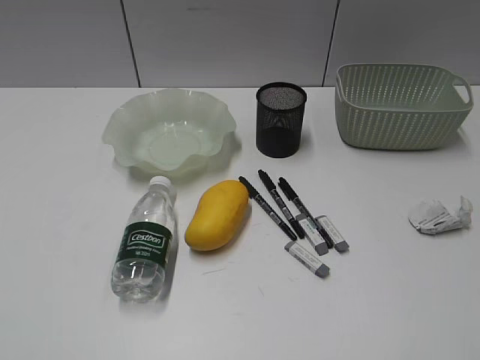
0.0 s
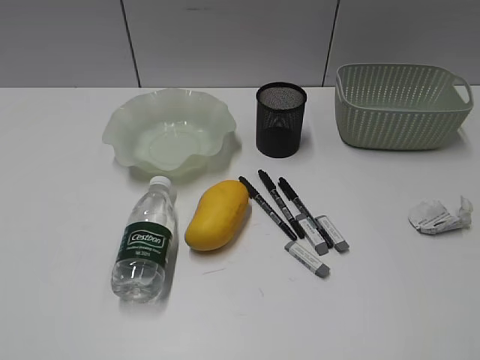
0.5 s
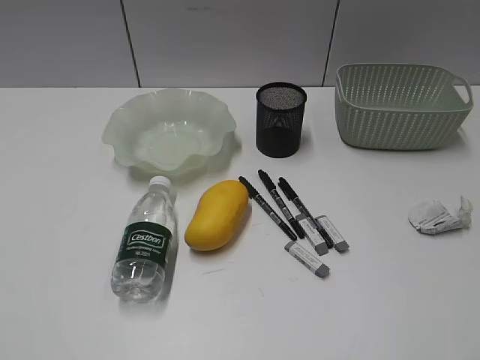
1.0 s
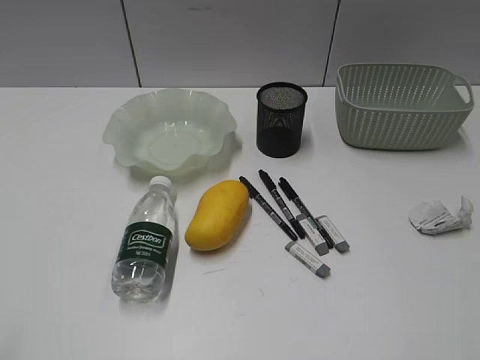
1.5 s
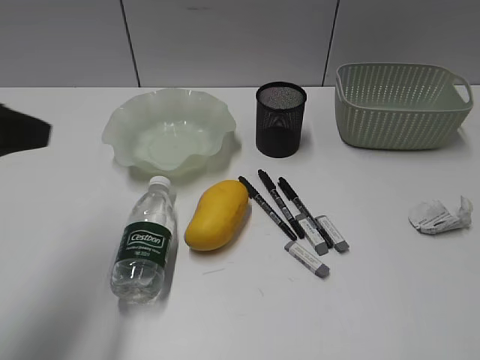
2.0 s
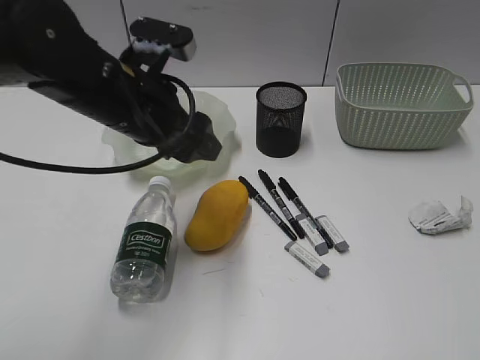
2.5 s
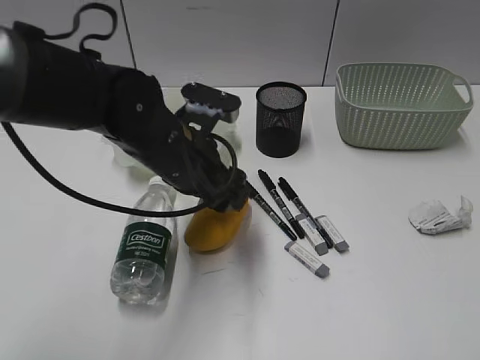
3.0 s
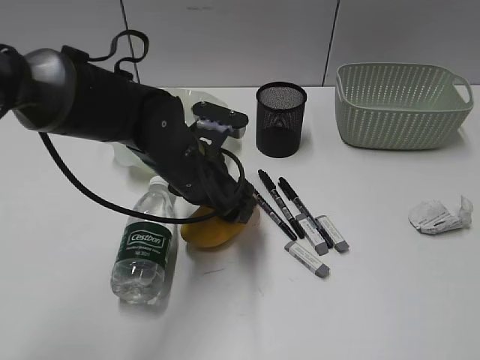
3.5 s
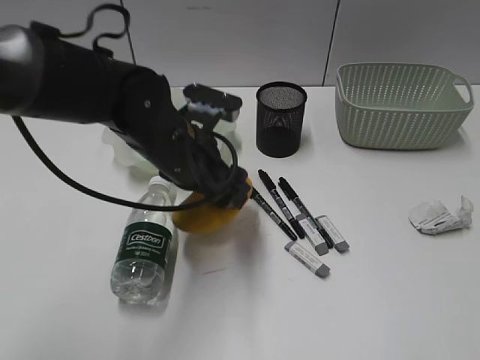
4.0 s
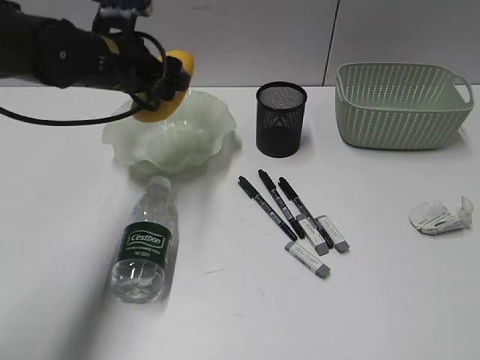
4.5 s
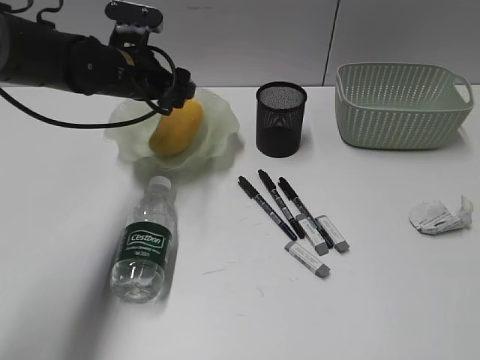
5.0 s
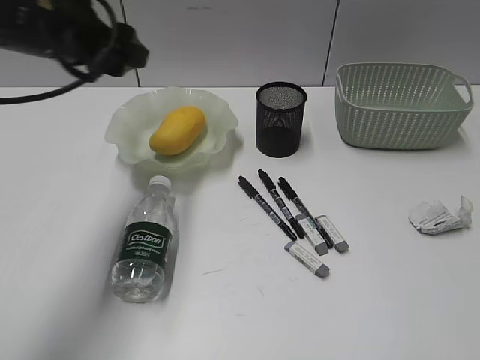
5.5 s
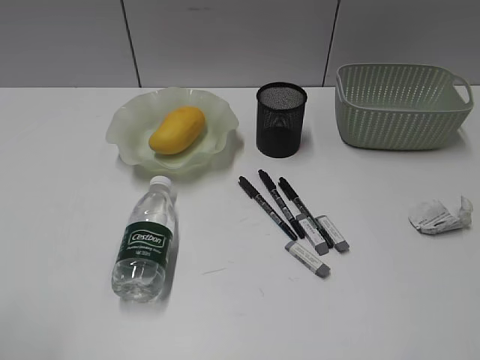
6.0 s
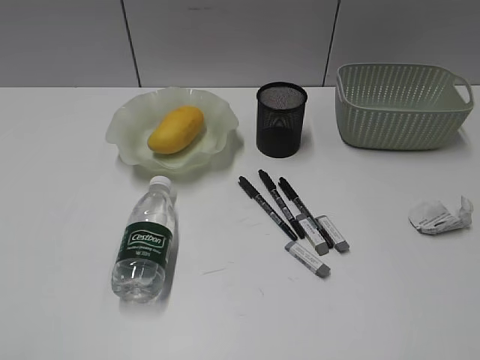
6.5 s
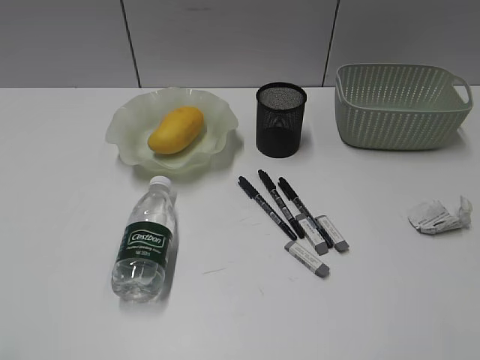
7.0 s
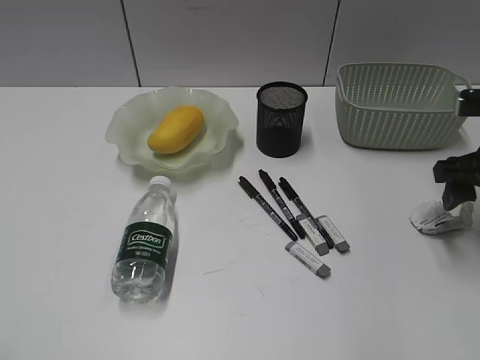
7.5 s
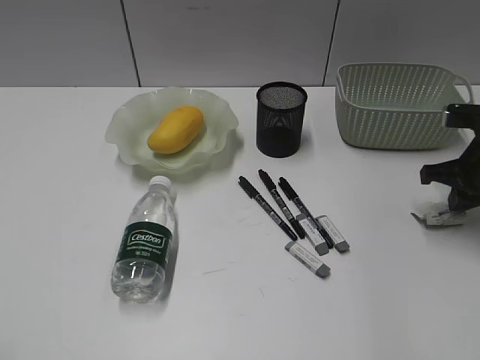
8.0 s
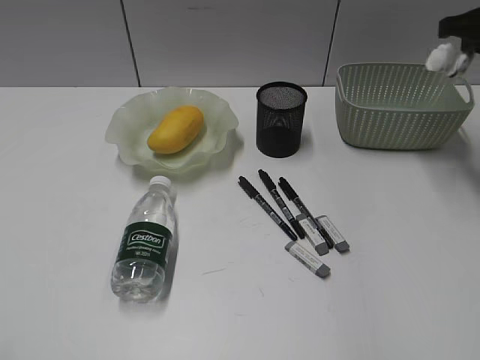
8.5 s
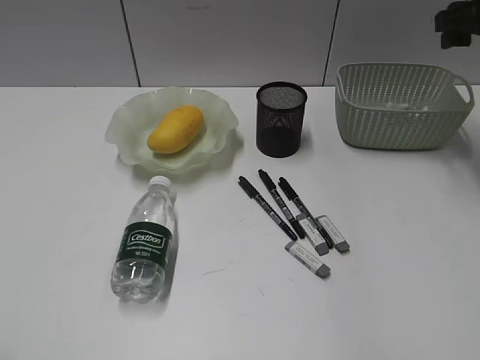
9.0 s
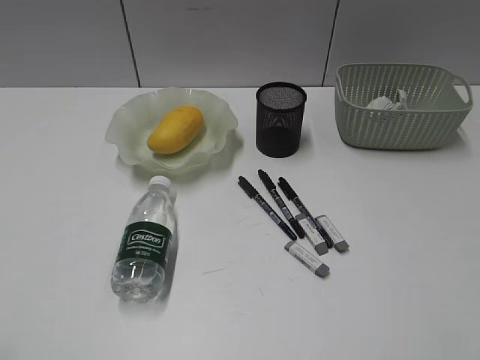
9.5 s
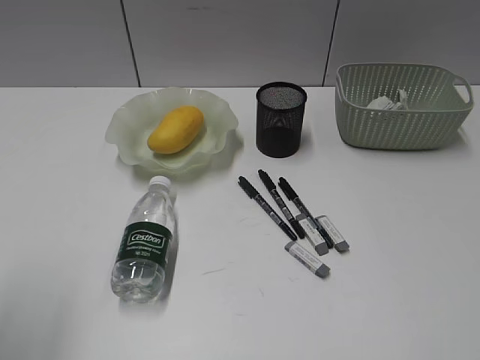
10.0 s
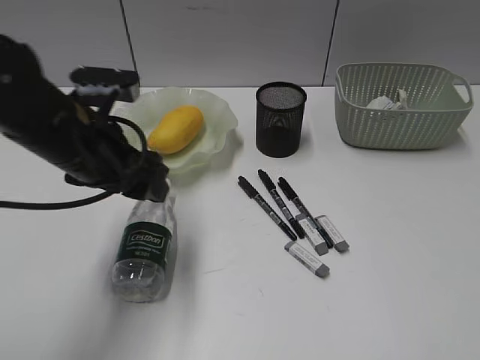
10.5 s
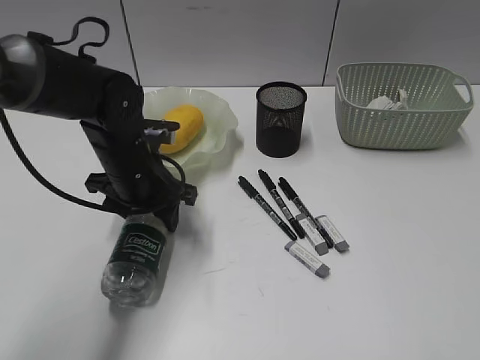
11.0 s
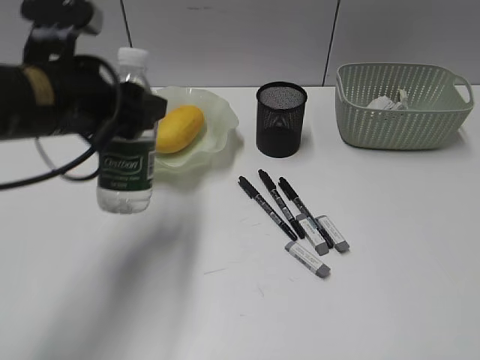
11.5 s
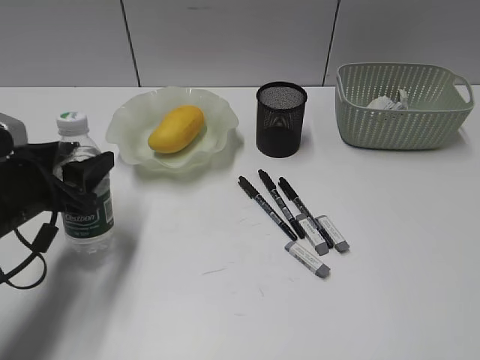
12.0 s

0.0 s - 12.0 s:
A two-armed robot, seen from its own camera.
Step, 1.5 s - 3.5 s: Grasp the mango with left gripper.
Step, 4.0 s - 5.0 s: Place the mango in the plate with left gripper.
Step, 5.5 s - 8.0 s: Grasp the waste paper with right gripper.
Step, 9.0 s - 11.0 s: Grasp the bottle with left gripper.
2.0 s - 4.0 s: The left gripper travels to the right, downward and forward by approximately 25 cm, and opens up.
4.0 s - 6.0 s: The left gripper is displaced backward, to the left and upward by about 40 cm.
6.0 s - 8.0 s: The right gripper goes roughly 35 cm forward and downward, and closes.
8.0 s - 10.0 s: The left gripper moves forward, roughly 10 cm; the right gripper is displaced backward and upward by roughly 40 cm, and opens up.
10.0 s - 12.0 s: The left gripper goes approximately 20 cm downward and forward.

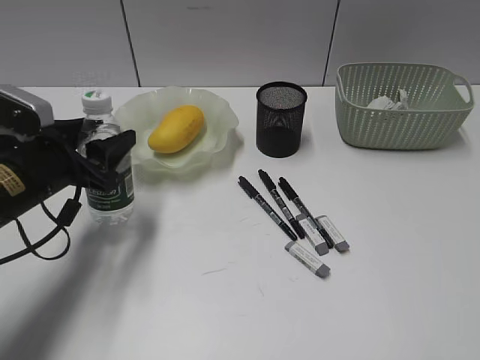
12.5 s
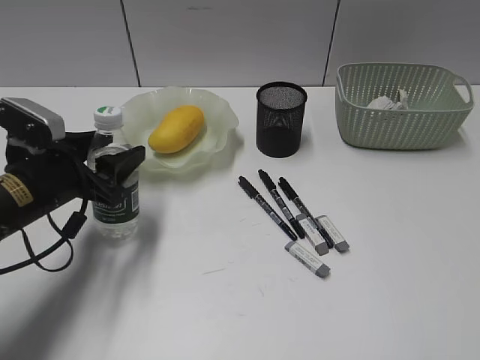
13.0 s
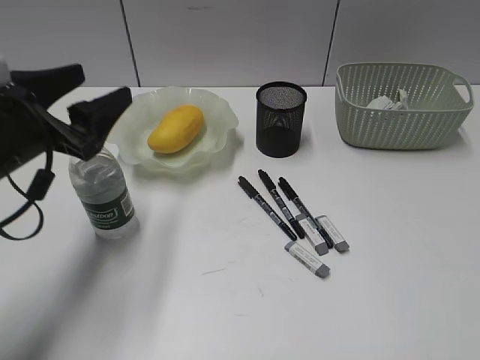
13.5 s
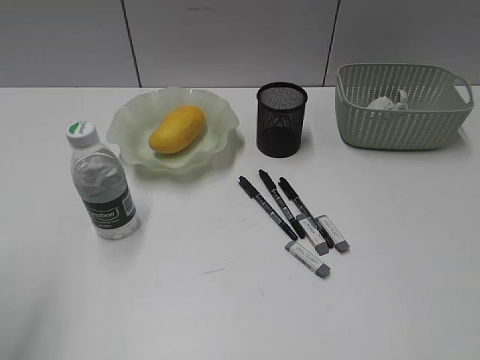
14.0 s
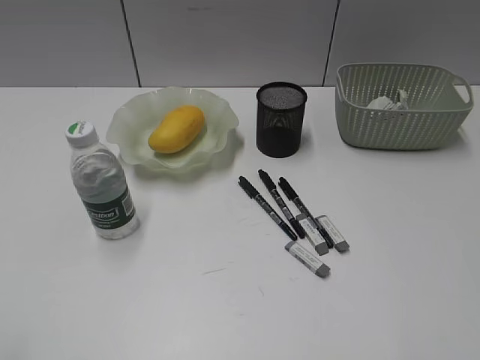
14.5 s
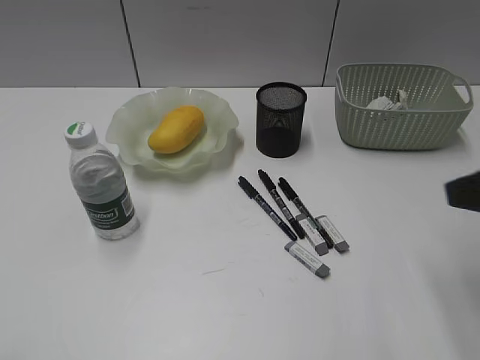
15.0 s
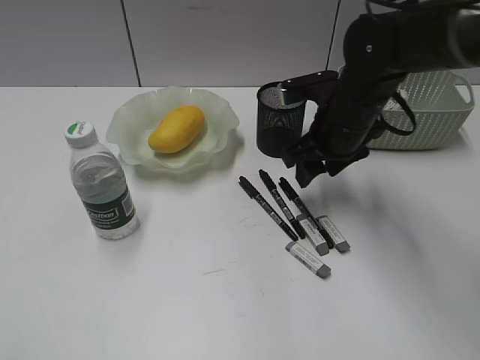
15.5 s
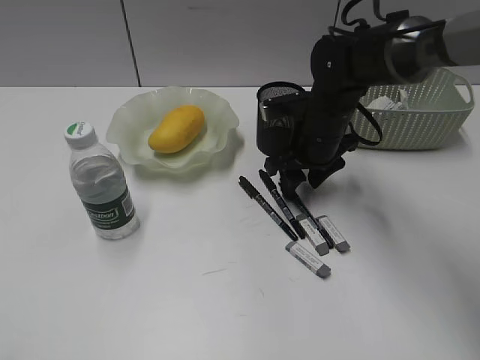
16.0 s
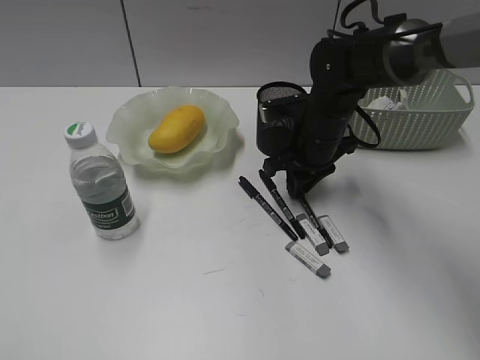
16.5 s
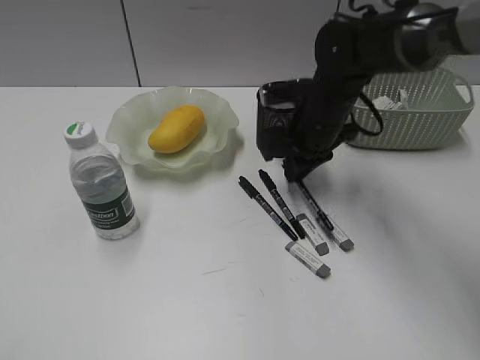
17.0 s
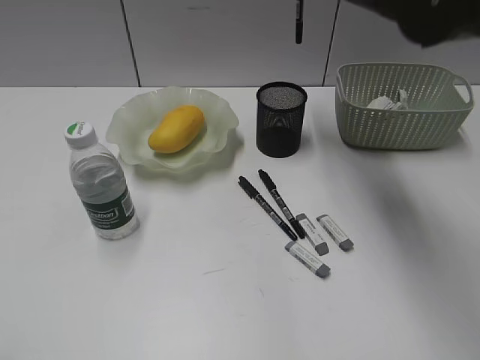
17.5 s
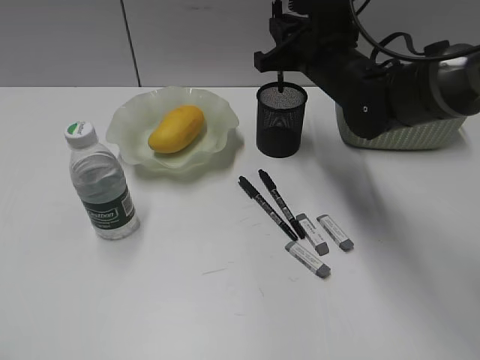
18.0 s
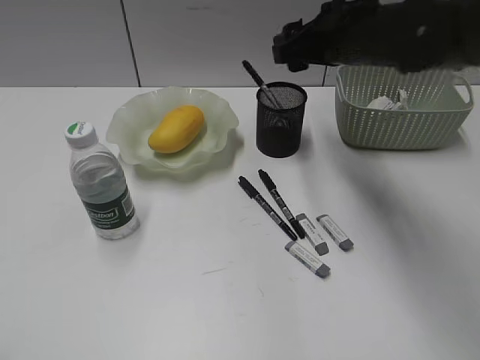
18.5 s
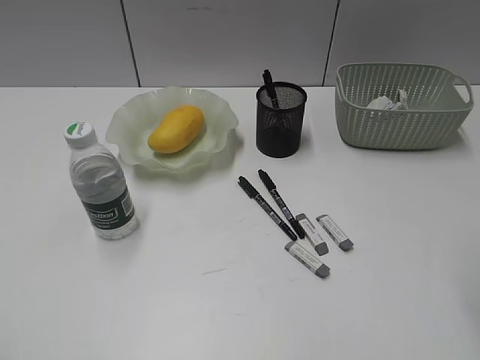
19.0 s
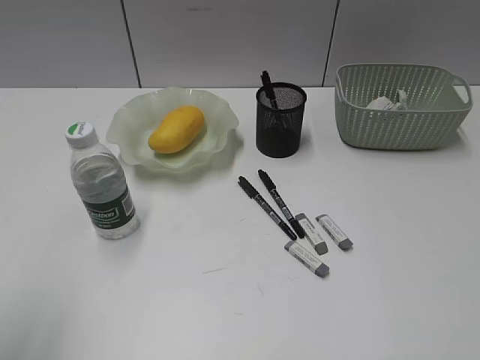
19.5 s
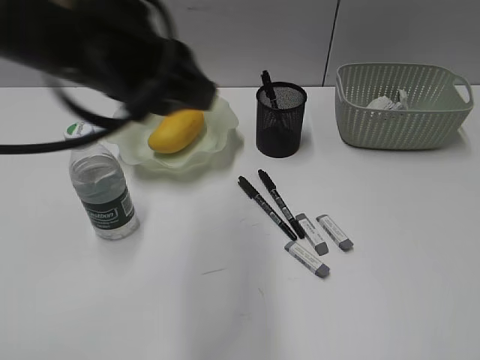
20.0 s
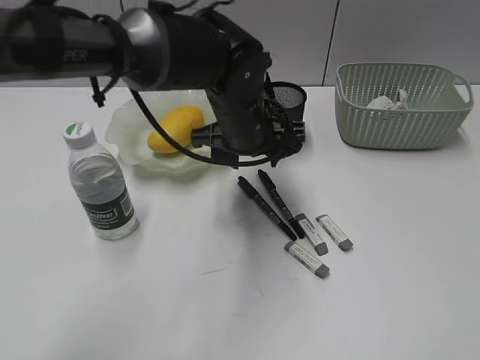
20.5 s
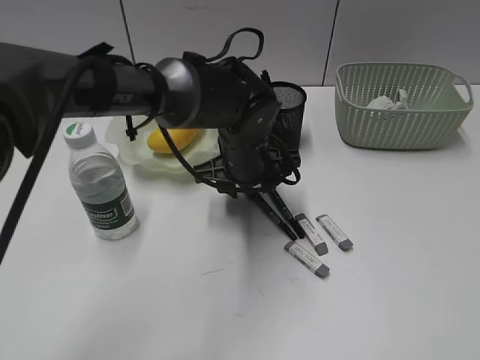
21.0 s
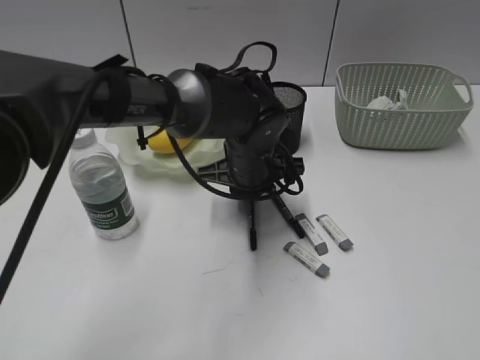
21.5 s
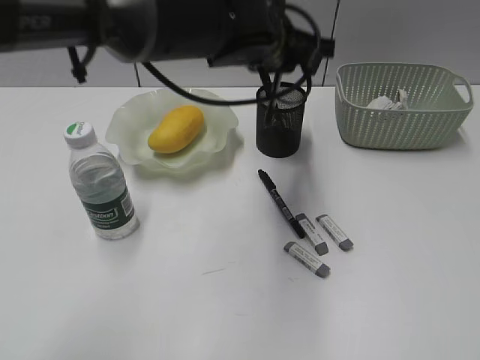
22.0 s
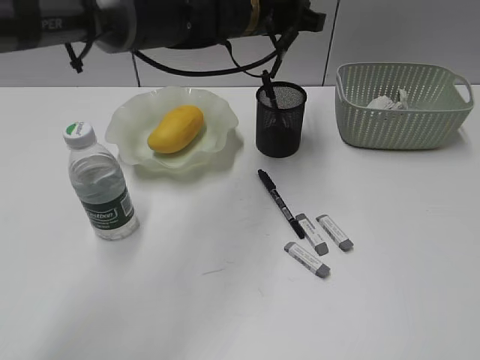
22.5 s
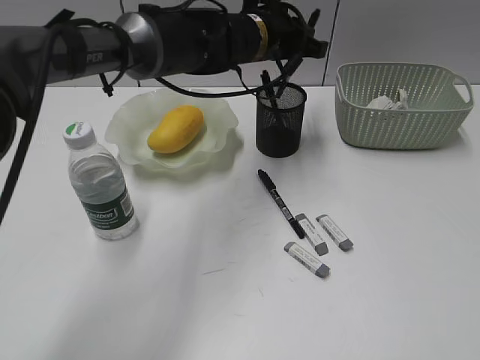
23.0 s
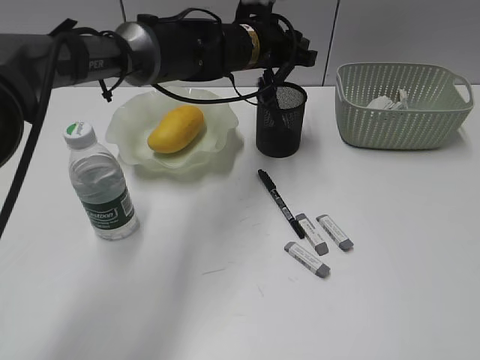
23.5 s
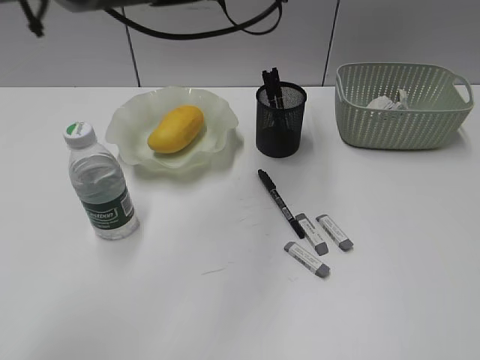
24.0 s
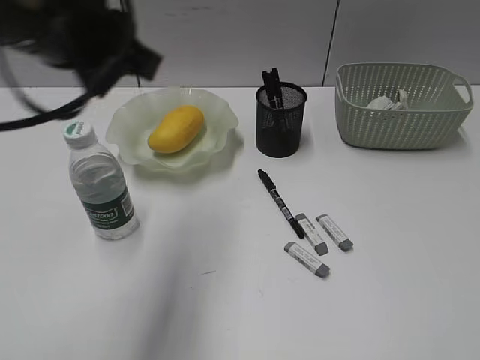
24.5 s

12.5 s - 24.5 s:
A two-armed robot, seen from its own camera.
Step, 13.5 s - 16.5 s: Grasp the black pen with right gripper.
Step, 17.0 s - 18.0 s: Place the black pen in pen holder with right gripper.
Step, 18.5 s - 21.5 s: Grasp the black pen with left gripper.
Step, 22.0 s - 23.5 s: Place the black pen in pen holder with left gripper.
12.5 s - 14.5 s: The left gripper moves backward and upward, roughly 30 cm.
14.5 s - 16.5 s: The right gripper is displaced forward, downward and to the left by roughly 40 cm, and closes.
16.5 s - 18.5 s: The right gripper swings up and down, some 20 cm each way, with 2 reversals, and opens.
18.5 s - 20.5 s: The right gripper shifts some 40 cm backward and to the right, while the left gripper shifts some 50 cm forward and to the right, and opens its fingers.
20.5 s - 22.5 s: The left gripper is displaced upward and forward by roughly 10 cm, and closes its fingers.
22.5 s - 24.5 s: The left gripper heads backward and to the left, covering some 25 cm.

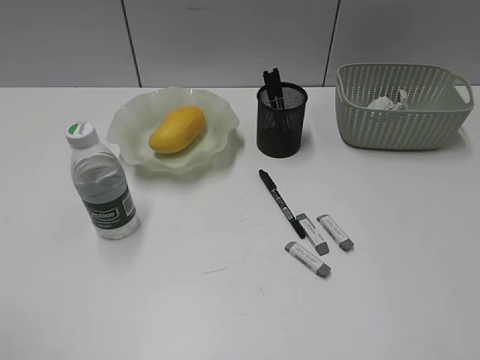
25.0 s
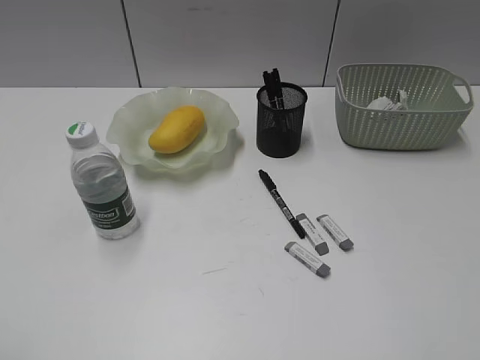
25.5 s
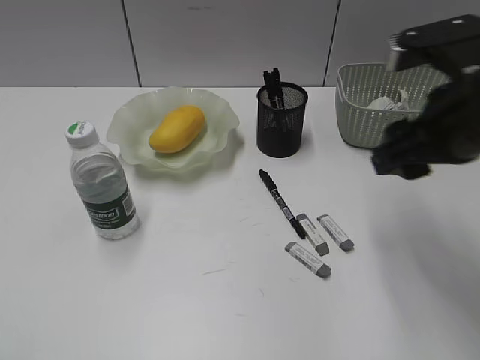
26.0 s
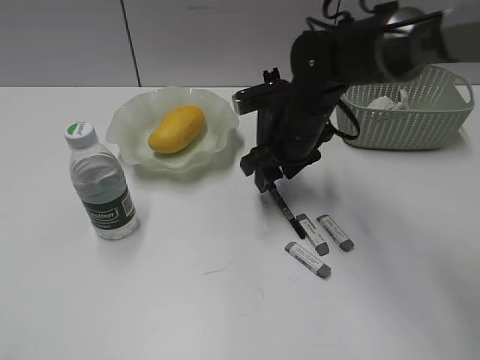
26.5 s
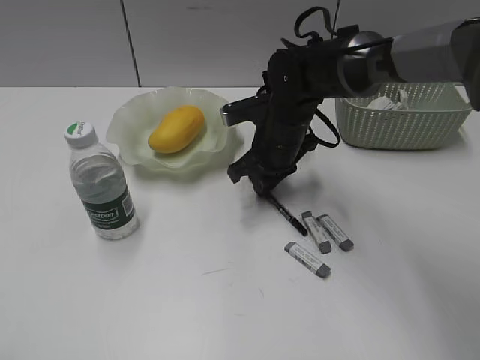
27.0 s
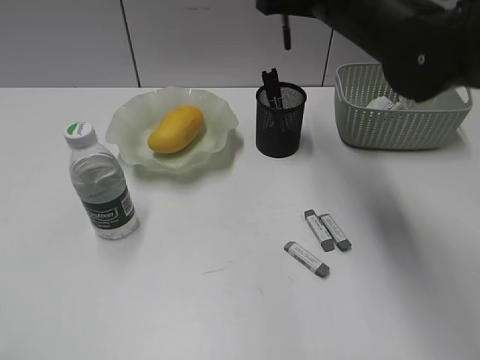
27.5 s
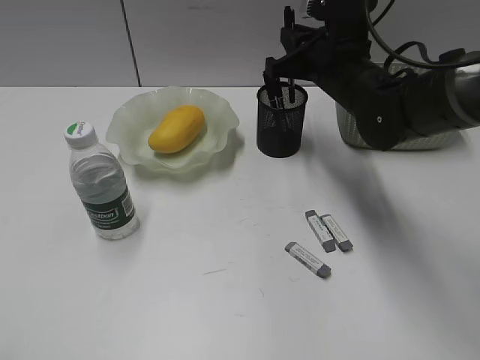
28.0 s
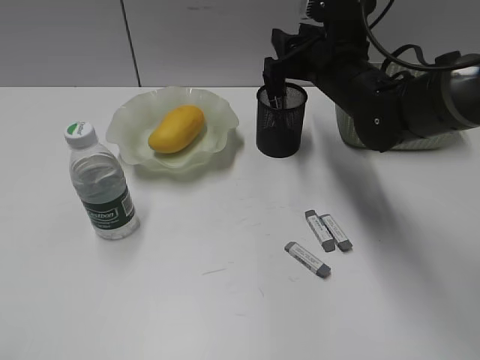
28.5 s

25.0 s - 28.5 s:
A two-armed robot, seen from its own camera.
Step, 25.0 s - 27.0 s: Grasp the black pen with right gripper.
25.0 s - 27.0 s: The right gripper travels forward, to the left and downward by approximately 50 cm, and closes up.
27.0 s - 28.5 s: The right gripper goes roughly 10 cm upward and to the right, and opens.
